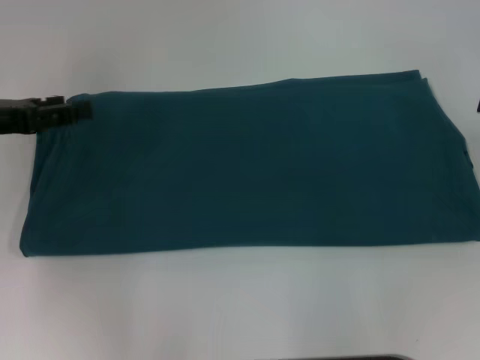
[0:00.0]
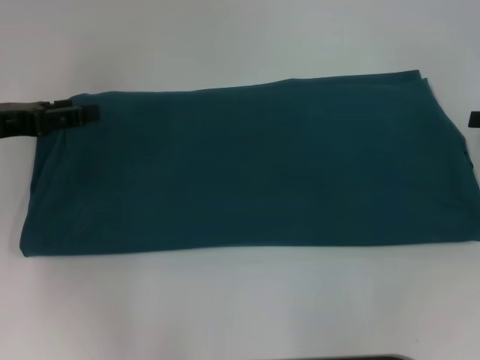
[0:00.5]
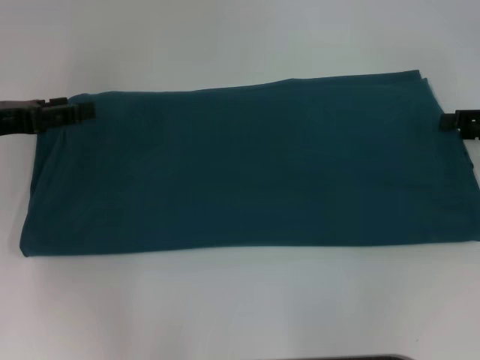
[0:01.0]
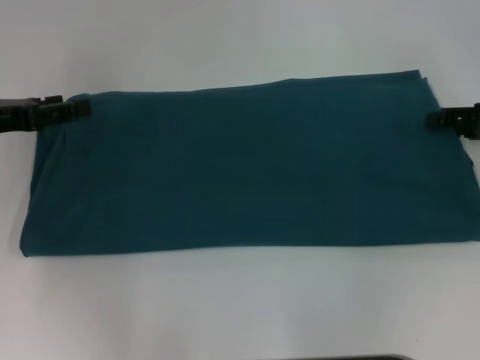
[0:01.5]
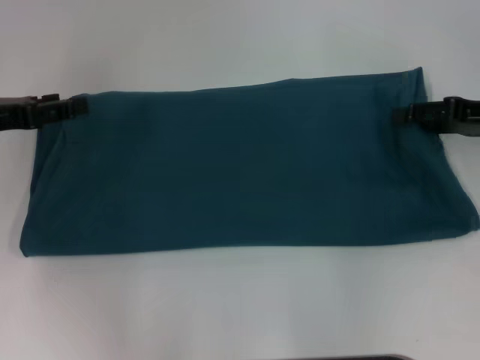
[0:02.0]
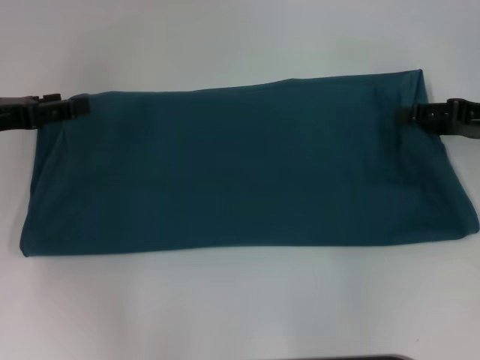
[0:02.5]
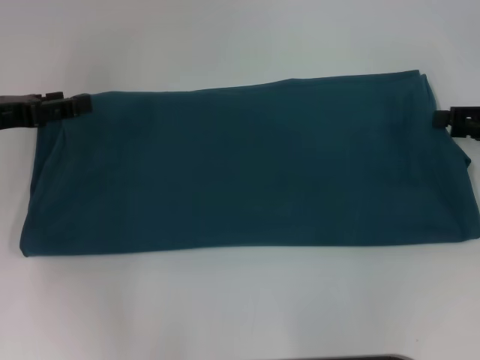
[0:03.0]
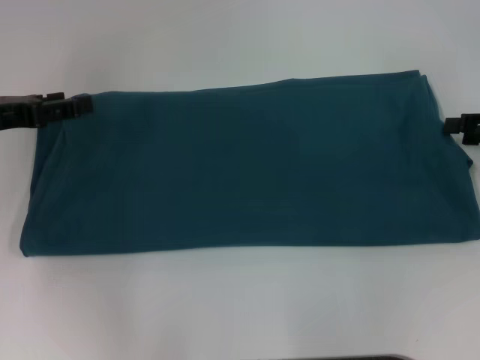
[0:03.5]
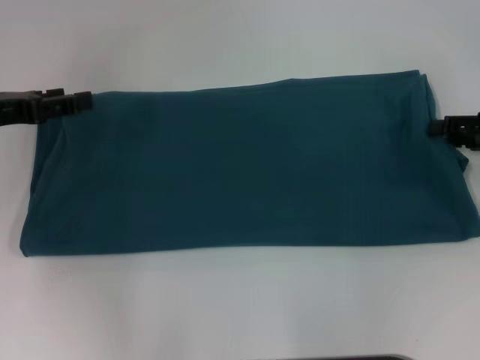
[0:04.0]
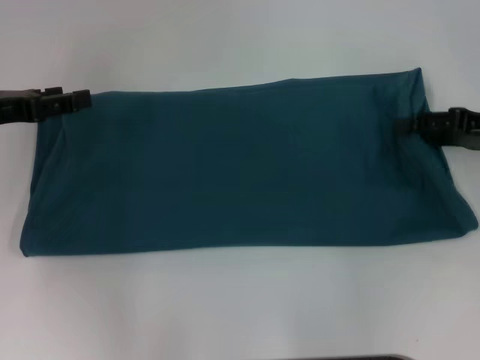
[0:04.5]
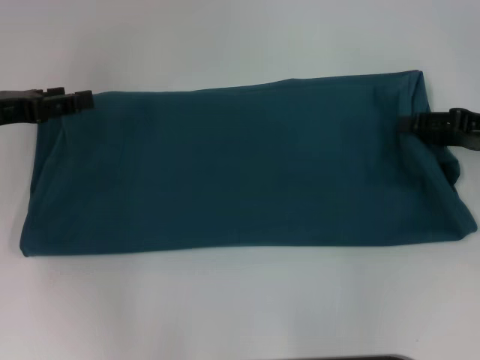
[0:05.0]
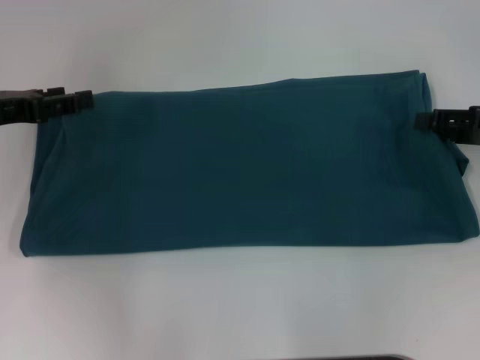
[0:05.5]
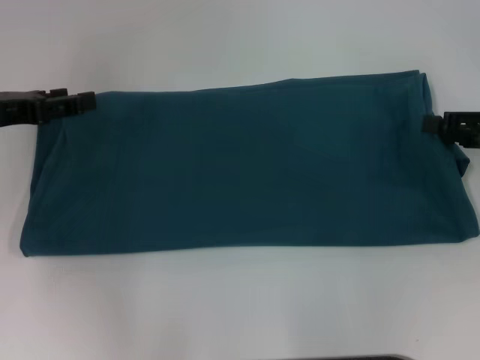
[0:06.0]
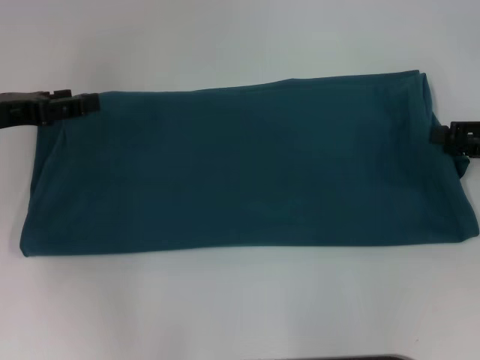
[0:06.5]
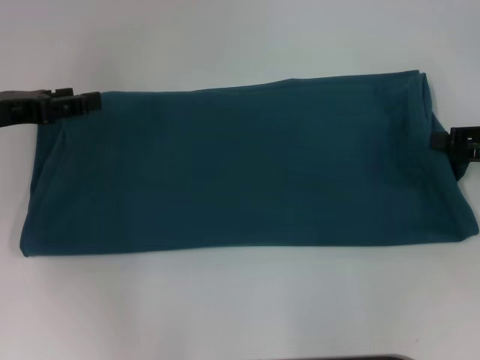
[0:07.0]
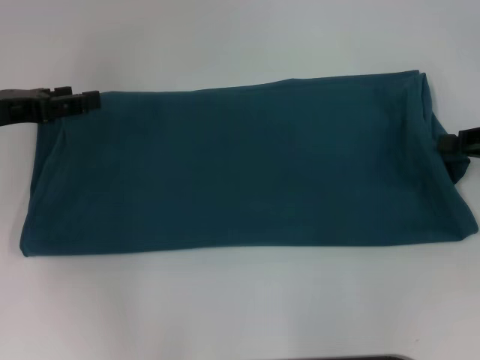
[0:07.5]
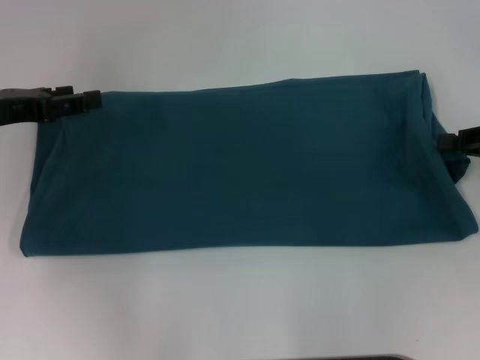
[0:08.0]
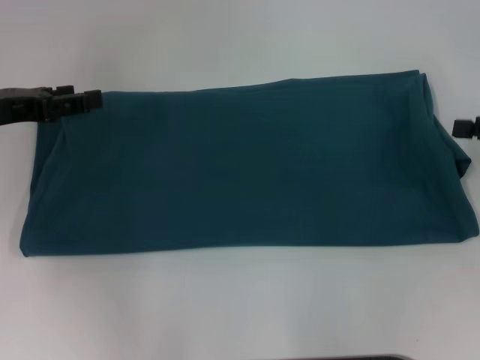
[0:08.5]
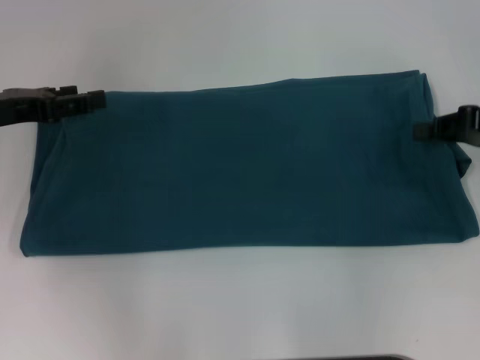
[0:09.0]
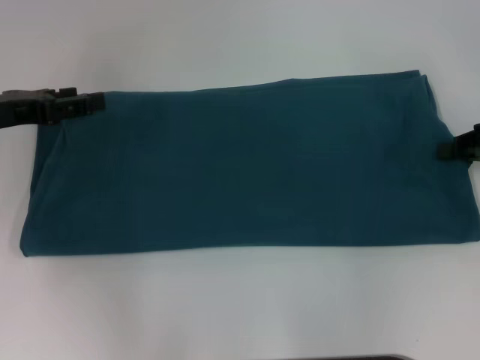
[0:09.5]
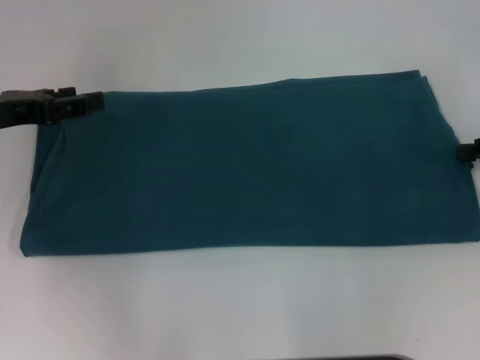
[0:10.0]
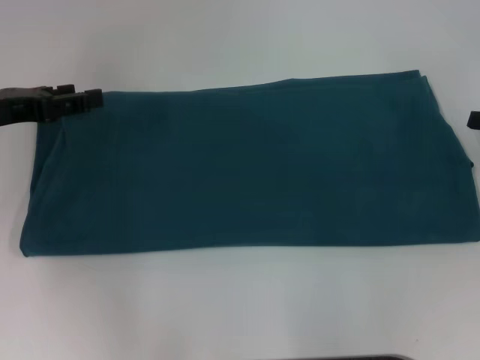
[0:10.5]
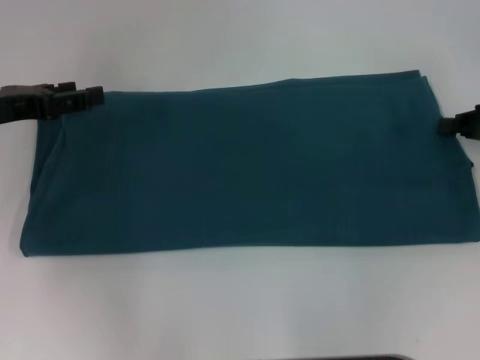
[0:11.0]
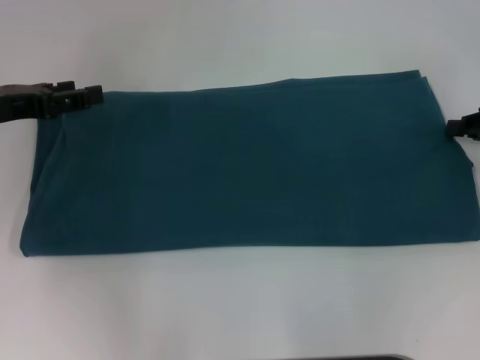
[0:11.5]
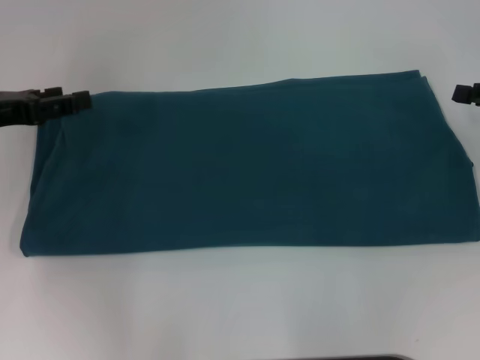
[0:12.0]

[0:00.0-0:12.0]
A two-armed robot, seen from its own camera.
0:00.0 to 0:02.0: The right gripper heads to the left, covering some 5 cm.
0:02.0 to 0:04.0: There are only small adjustments of the grippers.
0:06.0 to 0:08.0: The right gripper closes up.
0:08.0 to 0:12.0: There are only small adjustments of the grippers.

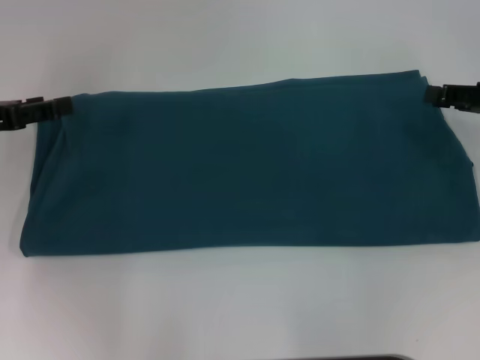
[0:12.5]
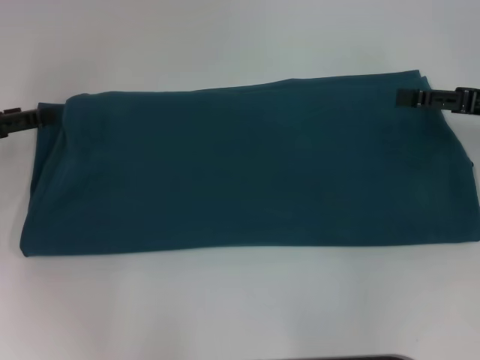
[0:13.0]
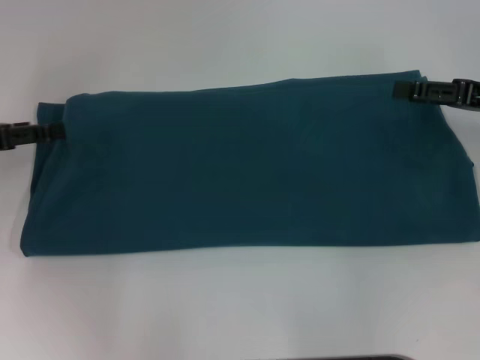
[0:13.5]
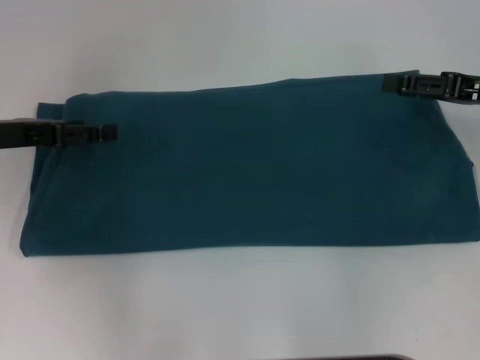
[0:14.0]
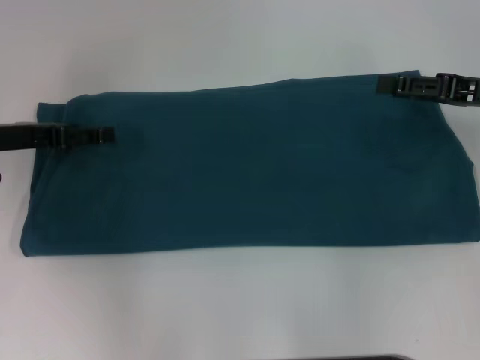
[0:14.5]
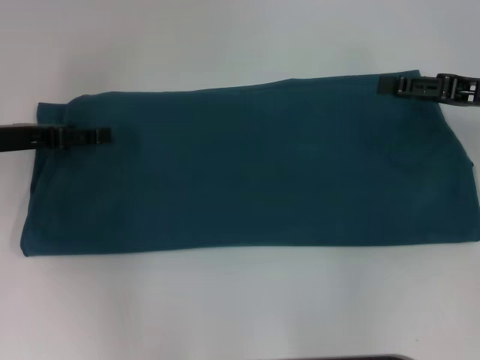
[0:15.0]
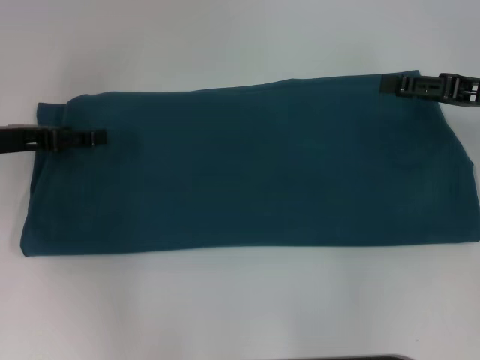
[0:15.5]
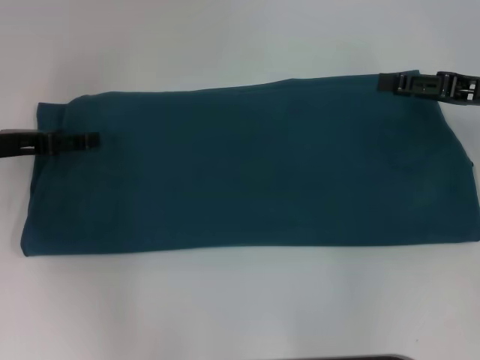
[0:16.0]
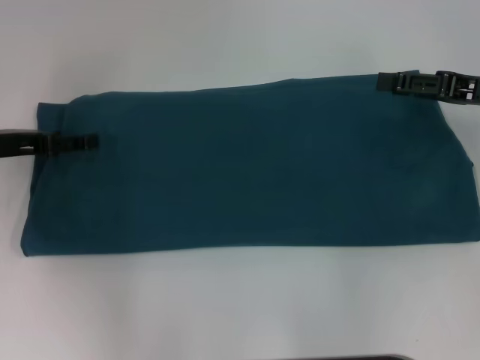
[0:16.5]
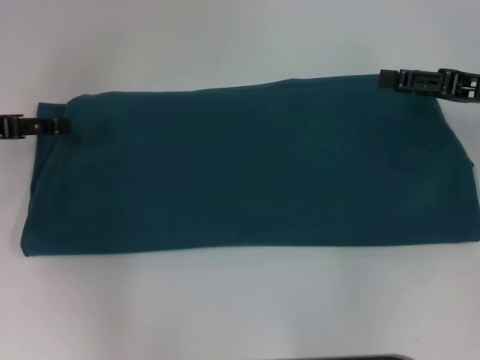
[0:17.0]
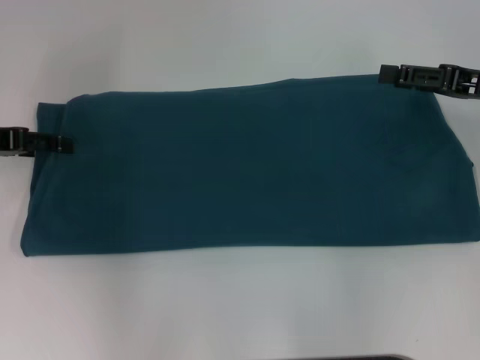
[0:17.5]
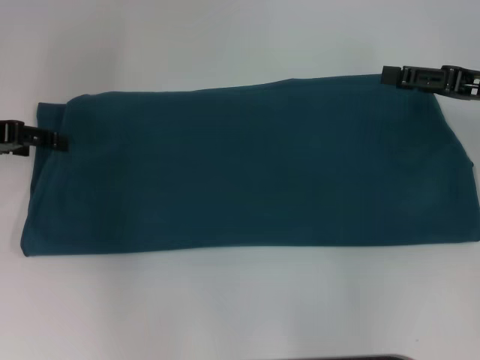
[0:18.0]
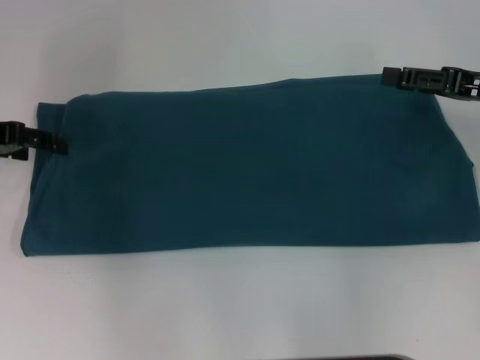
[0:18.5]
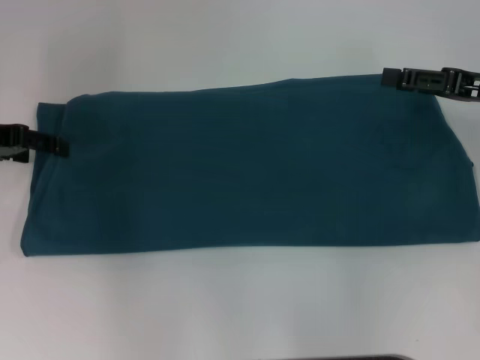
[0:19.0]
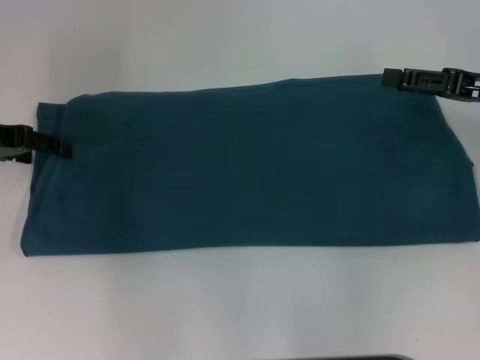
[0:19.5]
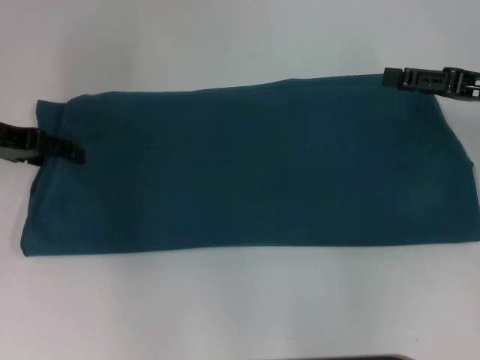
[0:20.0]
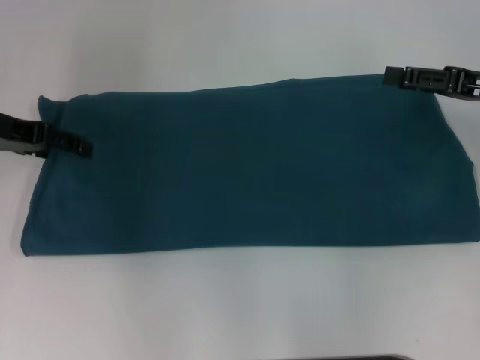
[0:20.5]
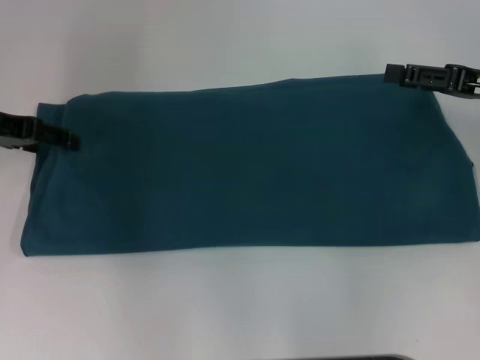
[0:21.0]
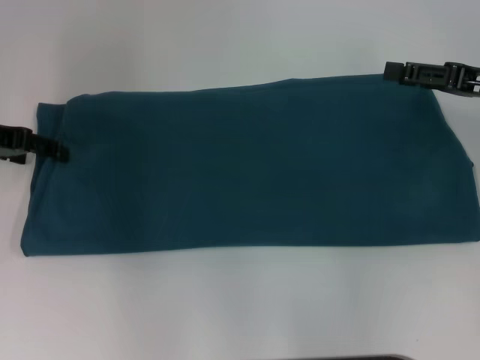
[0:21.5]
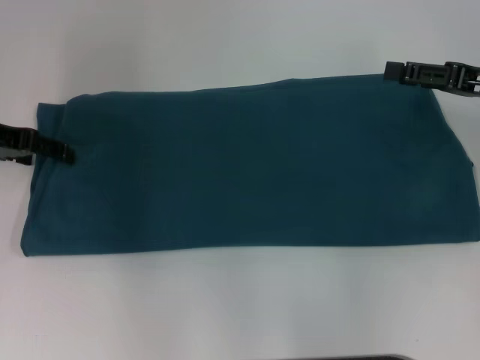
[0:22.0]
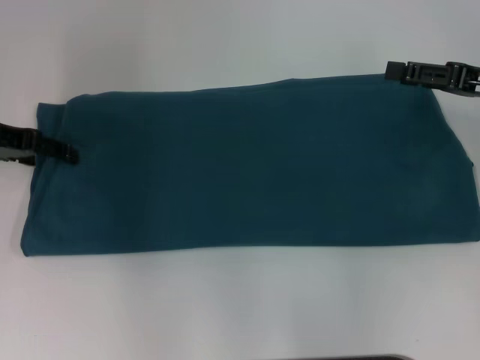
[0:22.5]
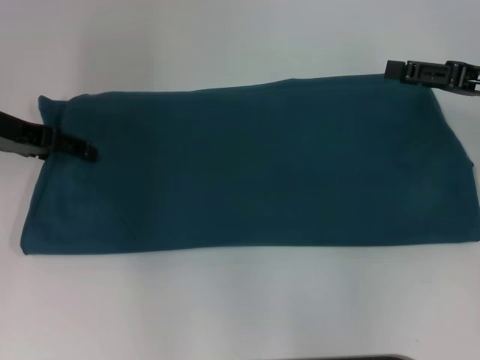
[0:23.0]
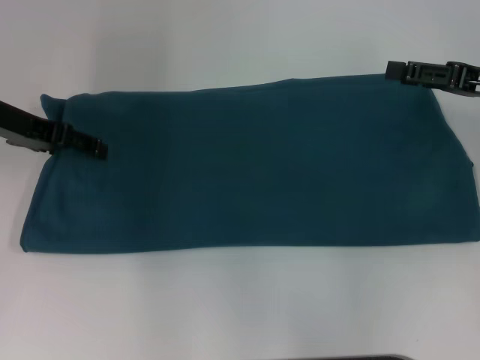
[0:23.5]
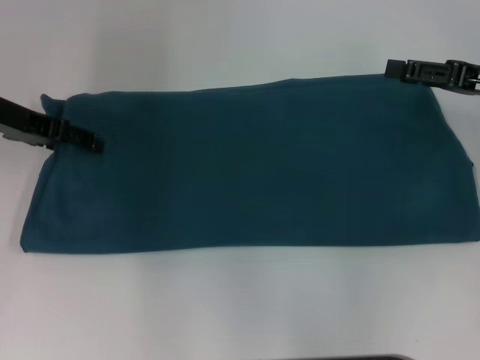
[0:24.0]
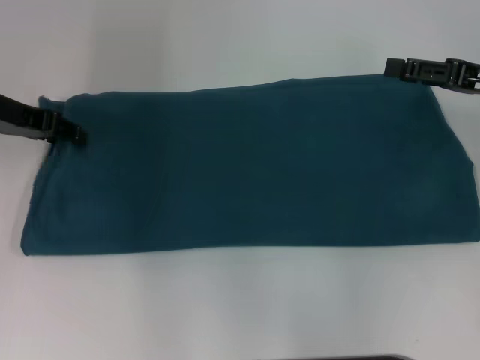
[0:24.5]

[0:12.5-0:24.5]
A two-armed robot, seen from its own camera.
0:12.5 to 0:14.5: The right gripper opens up.
0:16.5 to 0:18.5: The left gripper moves about 5 cm.
0:18.5 to 0:22.5: The grippers move only a little.
0:22.5 to 0:24.5: The left gripper closes its fingers.

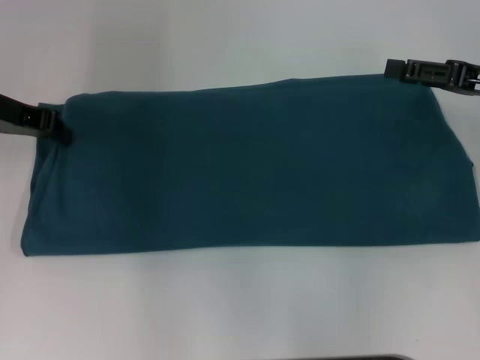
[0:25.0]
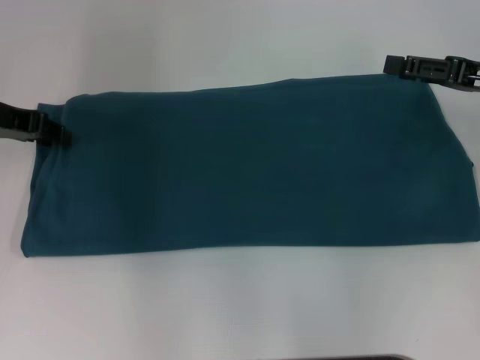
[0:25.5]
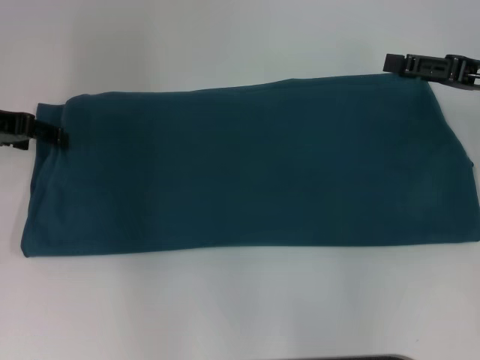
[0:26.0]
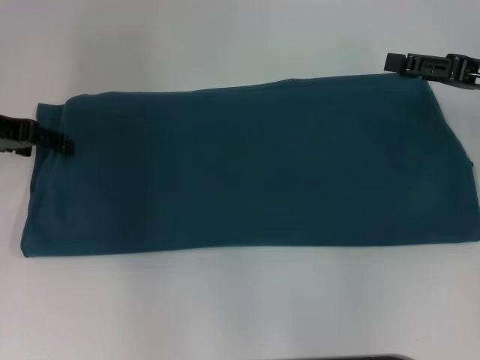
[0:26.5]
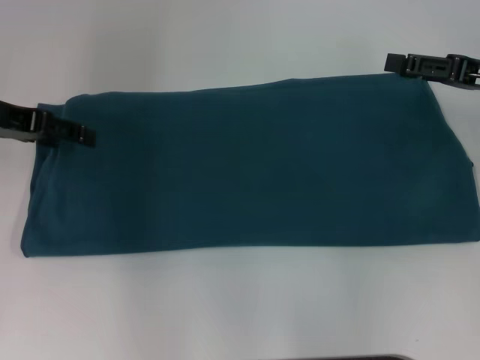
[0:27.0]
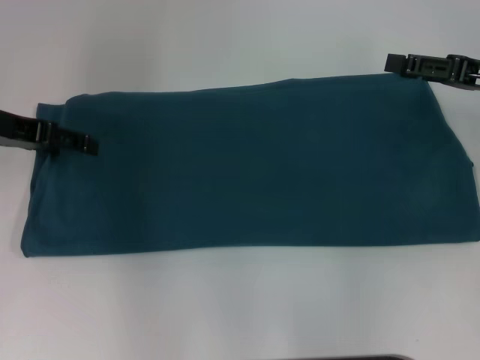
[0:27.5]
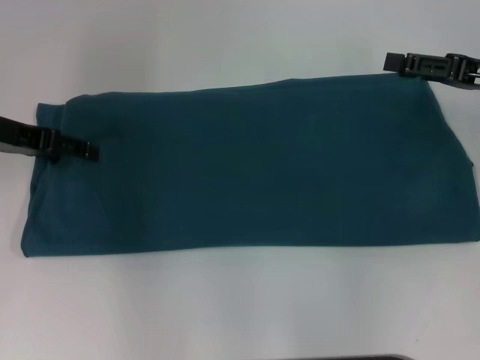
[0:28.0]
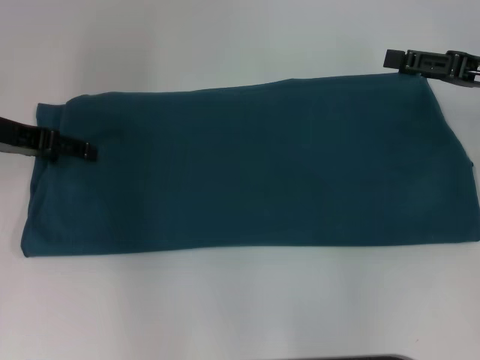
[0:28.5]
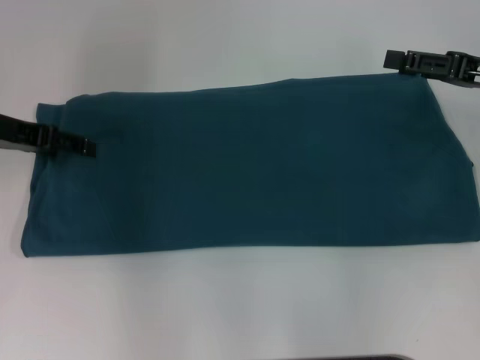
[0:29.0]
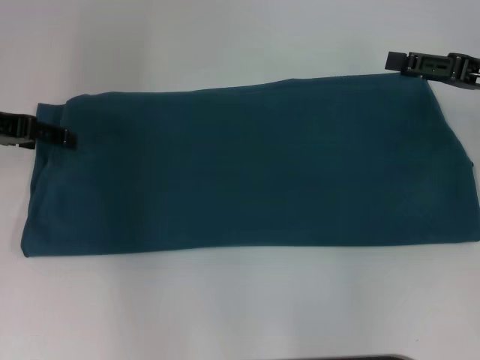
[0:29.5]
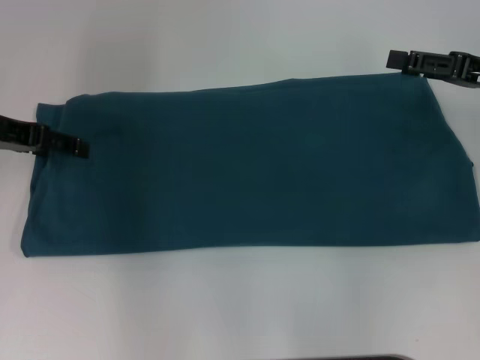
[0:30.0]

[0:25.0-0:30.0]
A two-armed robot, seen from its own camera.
0:25.0 to 0:27.5: The left gripper opens.
0:27.5 to 0:30.0: The grippers stay close to where they were, moving slightly.
